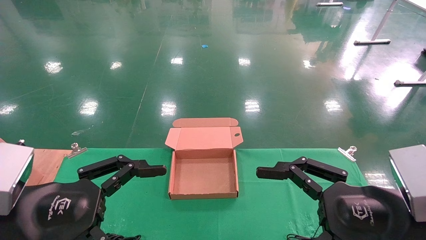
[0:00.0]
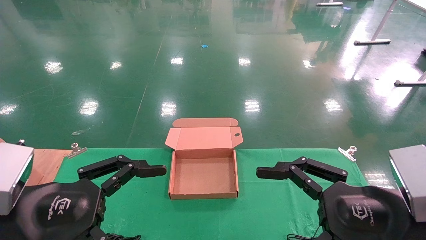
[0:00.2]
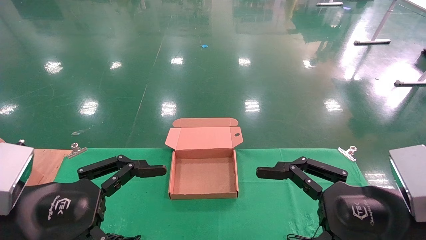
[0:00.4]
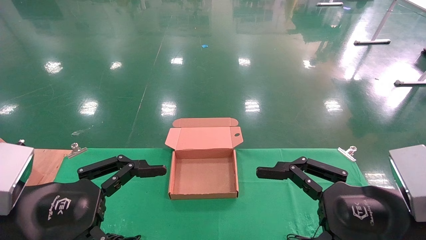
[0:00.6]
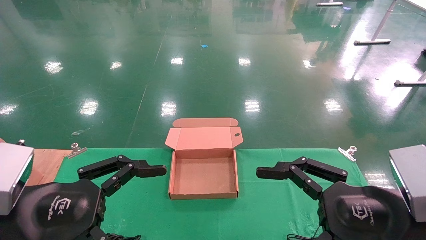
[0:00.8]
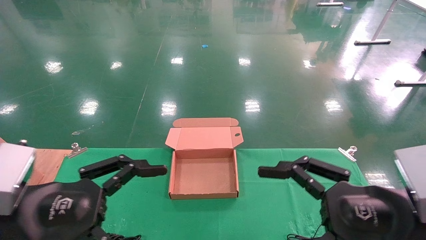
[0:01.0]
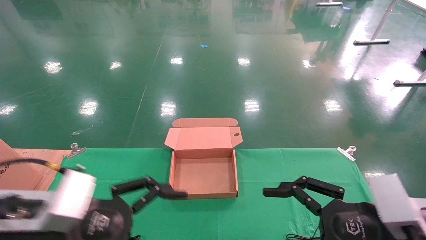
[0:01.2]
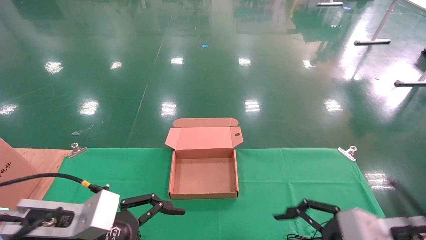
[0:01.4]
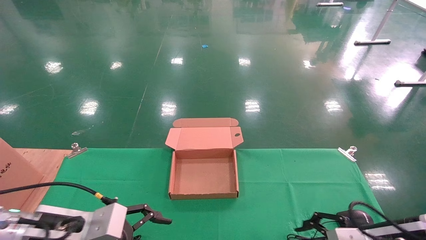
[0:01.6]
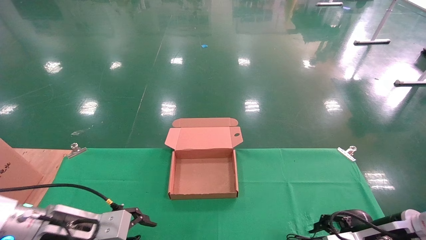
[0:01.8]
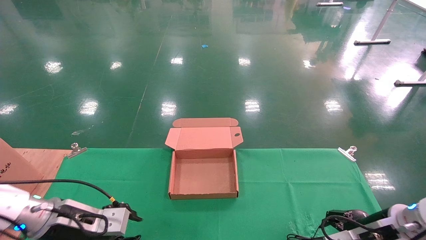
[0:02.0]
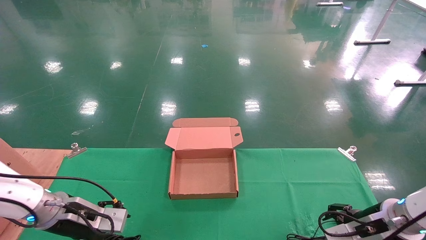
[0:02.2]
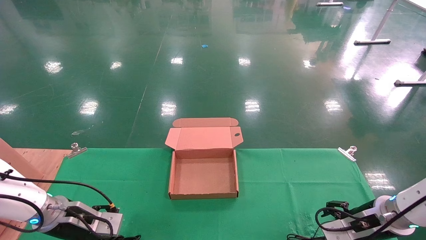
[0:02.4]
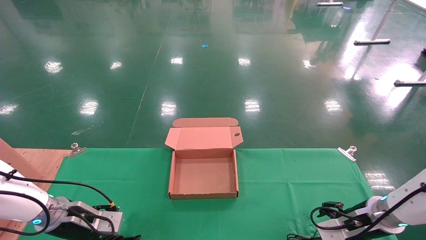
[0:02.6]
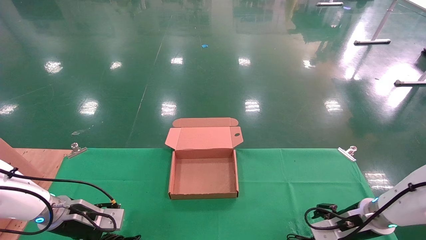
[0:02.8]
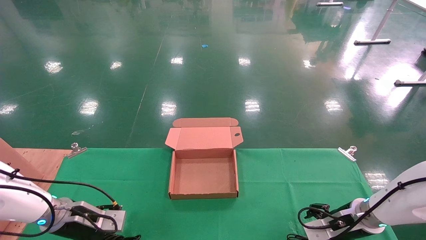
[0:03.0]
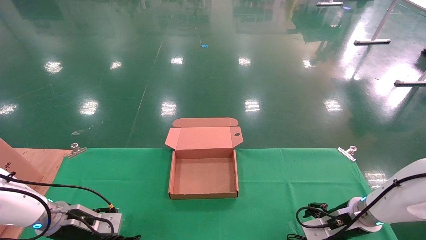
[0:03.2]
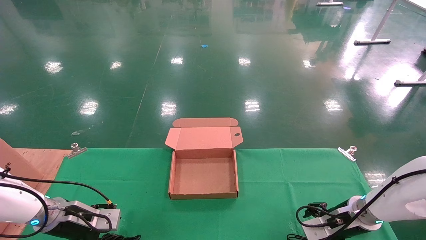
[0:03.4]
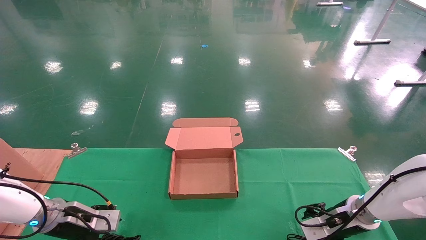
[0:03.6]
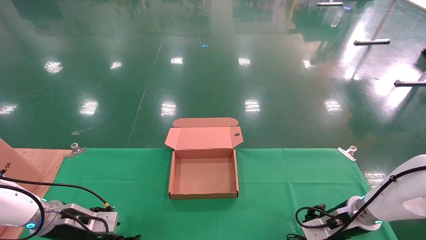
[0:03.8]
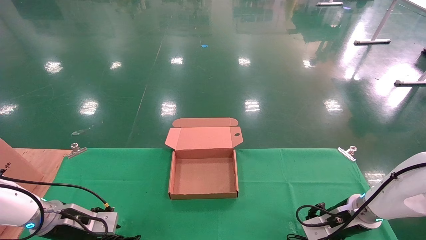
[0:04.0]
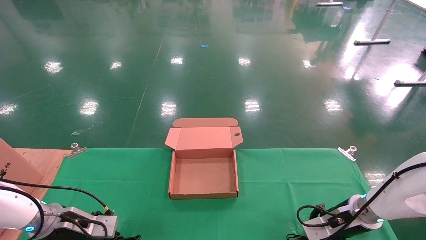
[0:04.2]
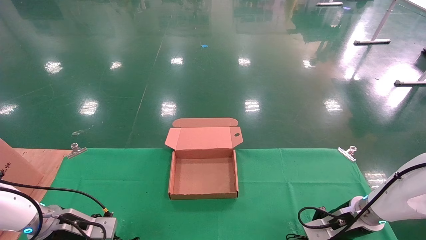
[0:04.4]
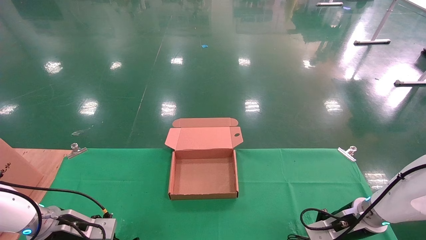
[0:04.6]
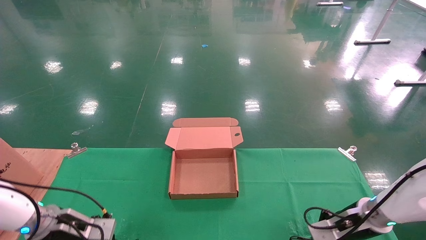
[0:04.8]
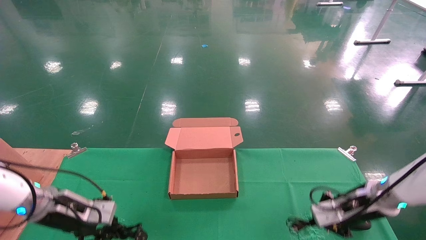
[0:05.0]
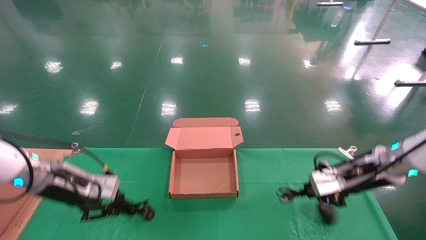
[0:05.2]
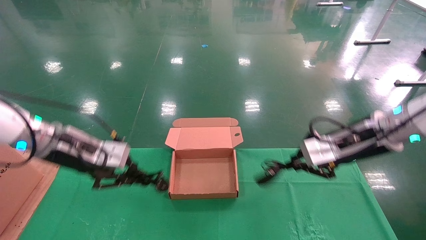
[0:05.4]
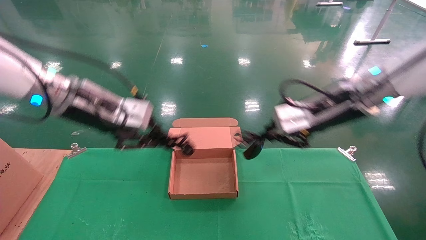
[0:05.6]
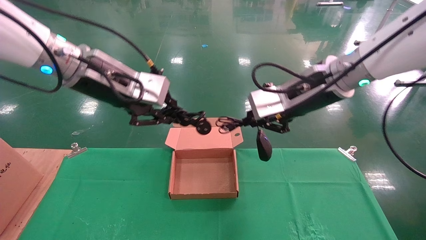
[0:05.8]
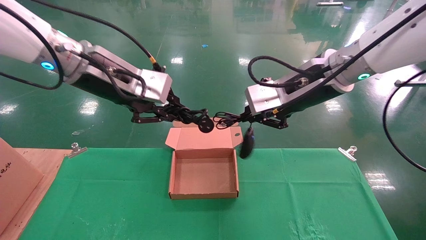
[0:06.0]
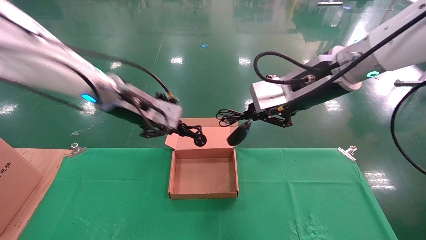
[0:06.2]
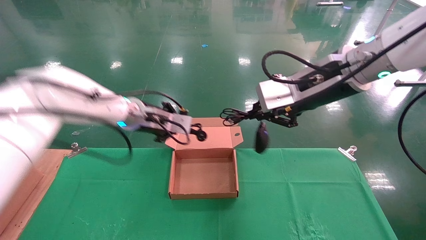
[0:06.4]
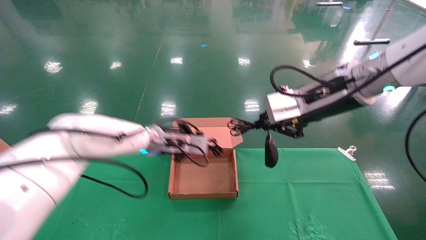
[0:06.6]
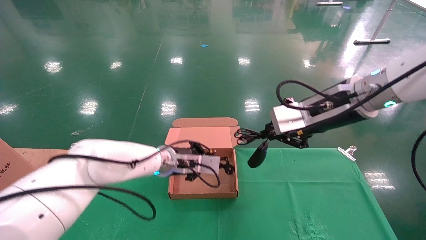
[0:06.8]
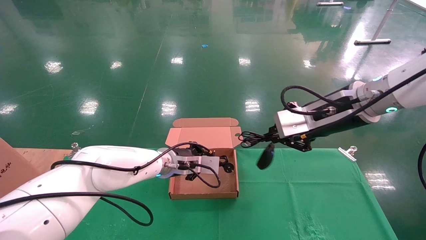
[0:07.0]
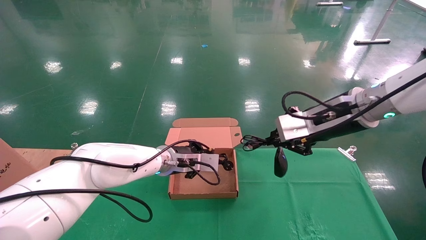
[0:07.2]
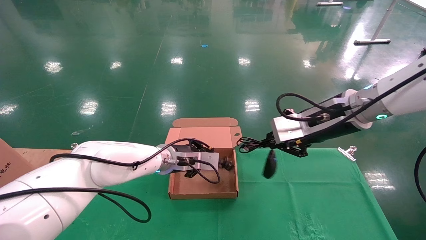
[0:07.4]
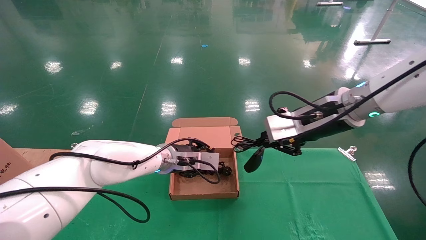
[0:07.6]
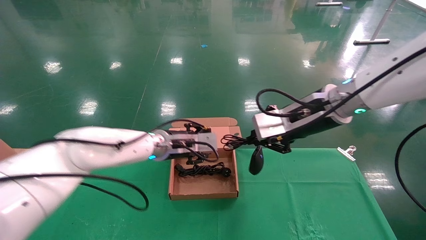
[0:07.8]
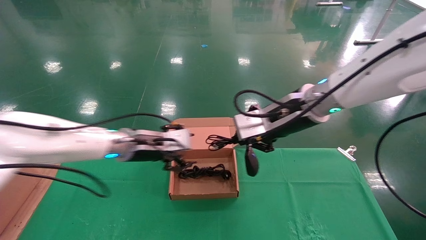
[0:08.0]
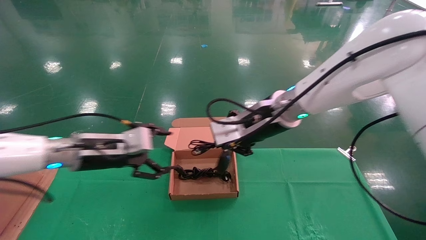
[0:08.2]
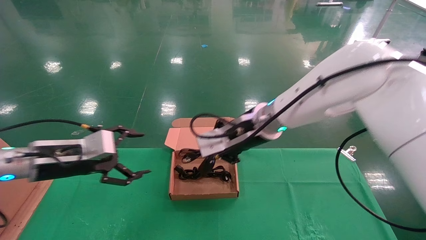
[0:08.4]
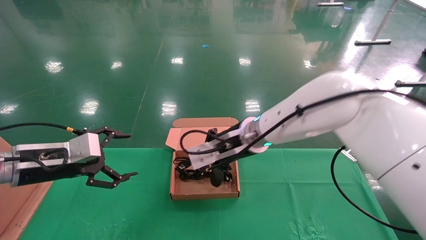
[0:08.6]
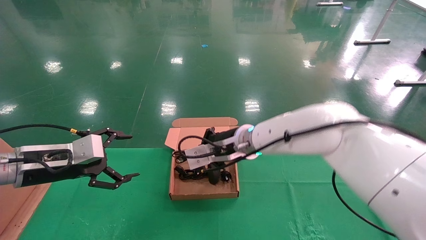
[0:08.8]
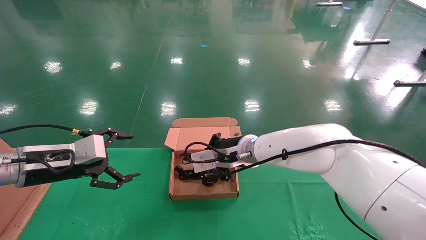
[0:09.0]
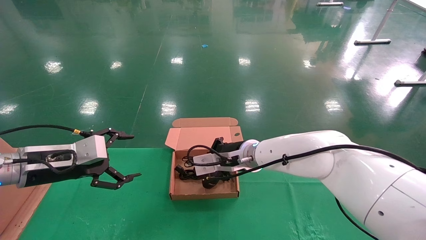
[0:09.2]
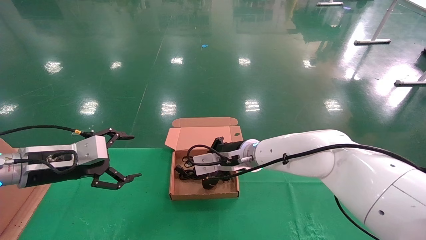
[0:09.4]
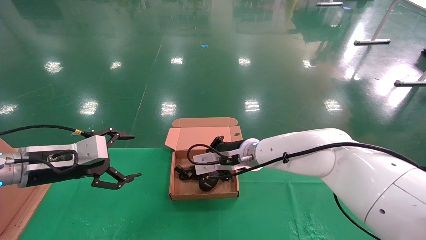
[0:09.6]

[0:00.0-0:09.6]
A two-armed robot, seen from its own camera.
Step, 0:01.4 to 0:05.2: Grab and lift both the mouse and power cord from the accessory packaging area at the same time.
0:00.0 to 0:01.6: The left gripper goes some 10 cm forward and downward; the right gripper moves downward and forward, approximately 10 cm.
0:01.6 to 0:03.2: The left gripper shifts some 15 cm forward, to the left and downward; the right gripper goes approximately 15 cm forward and downward.
0:03.2 to 0:04.8: The right gripper closes up, while the left gripper closes up.
0:04.8 to 0:06.4: The right gripper travels upward and to the left by approximately 30 cm. Meanwhile the left gripper heads upward and to the right, covering approximately 25 cm.
0:06.4 to 0:08.0: The grippers both shift downward by some 5 cm. The left gripper opens up.
0:08.0 to 0:09.6: The left gripper travels to the left and backward by about 15 cm, and opens. Meanwhile the right gripper moves downward, to the left and forward, roughly 15 cm.

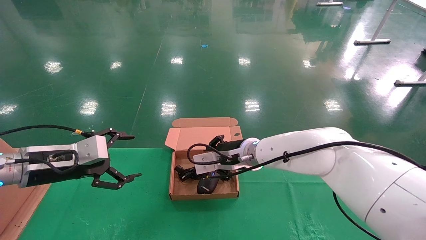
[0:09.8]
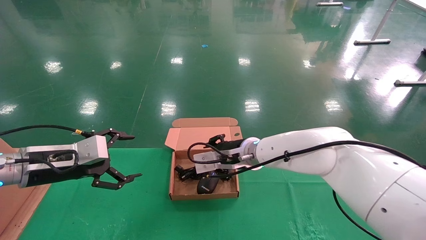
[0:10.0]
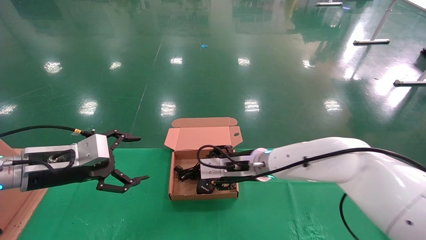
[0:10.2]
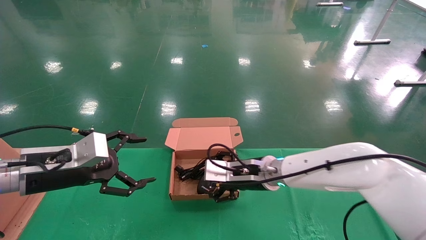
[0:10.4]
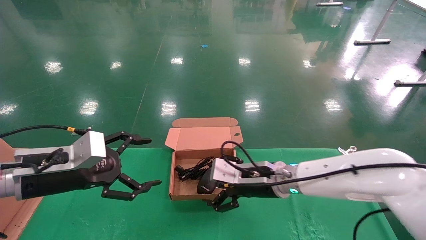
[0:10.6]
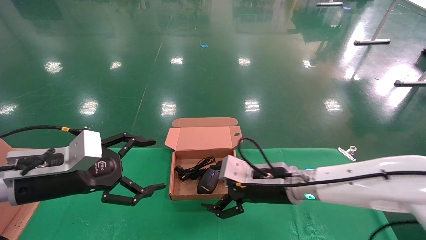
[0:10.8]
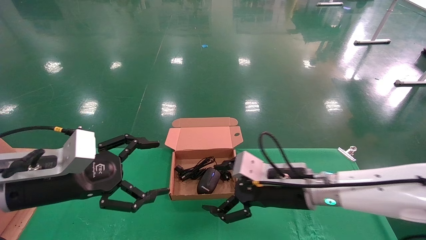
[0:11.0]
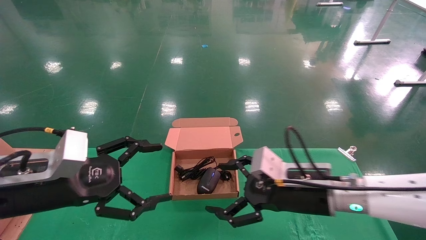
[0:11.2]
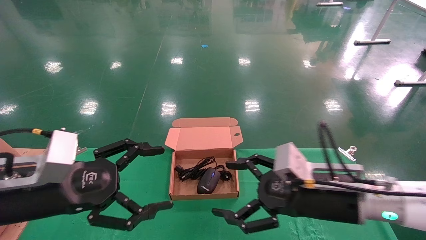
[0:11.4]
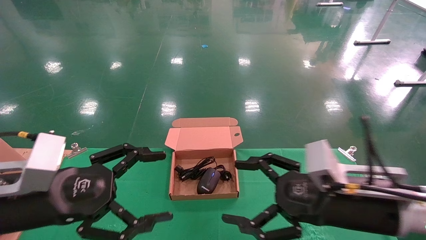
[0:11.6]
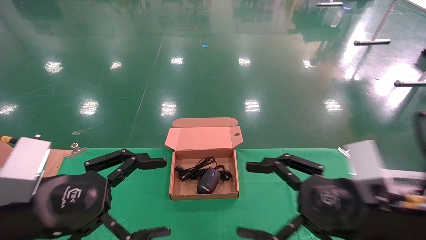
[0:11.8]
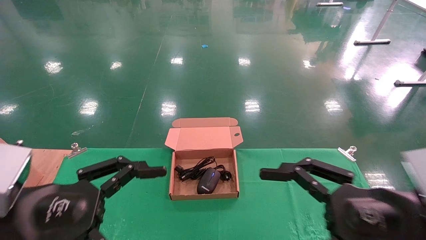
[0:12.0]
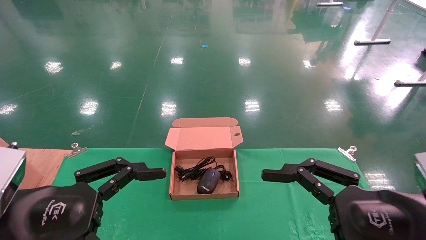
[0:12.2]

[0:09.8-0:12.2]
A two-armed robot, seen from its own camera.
0:09.8 to 0:11.0: The left gripper heads backward and to the right, covering approximately 10 cm. The right gripper shifts roughly 15 cm backward and to the right, and opens.
0:11.0 to 0:12.2: The right gripper shifts about 20 cm backward and to the right; the left gripper is displaced backward by some 10 cm.

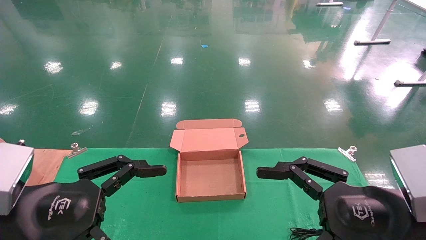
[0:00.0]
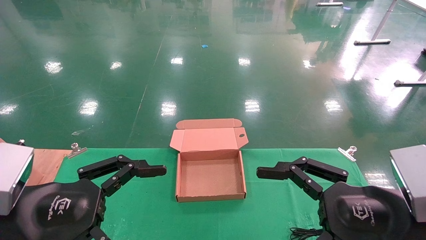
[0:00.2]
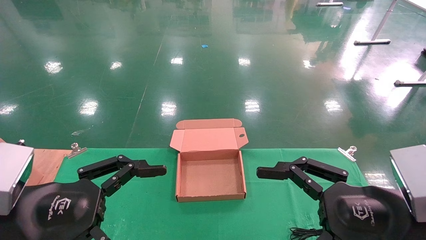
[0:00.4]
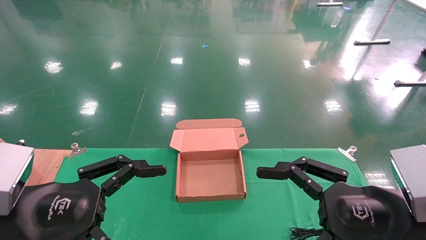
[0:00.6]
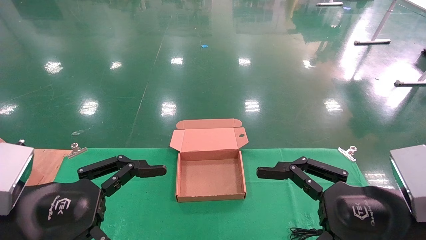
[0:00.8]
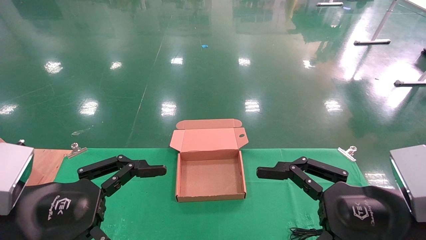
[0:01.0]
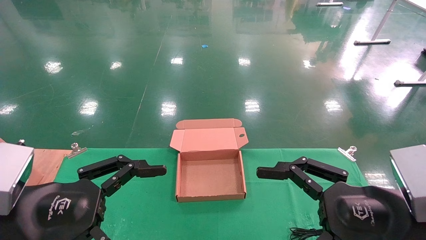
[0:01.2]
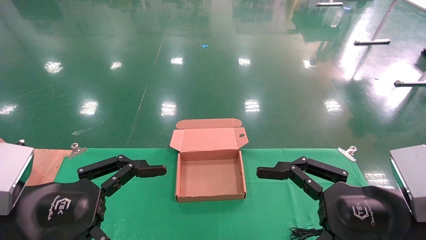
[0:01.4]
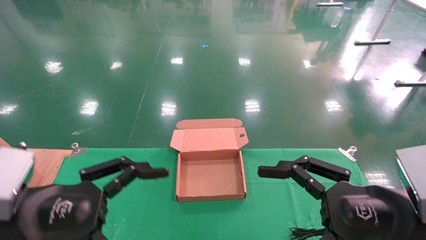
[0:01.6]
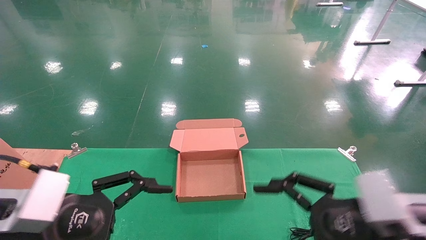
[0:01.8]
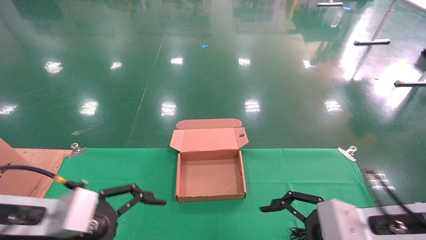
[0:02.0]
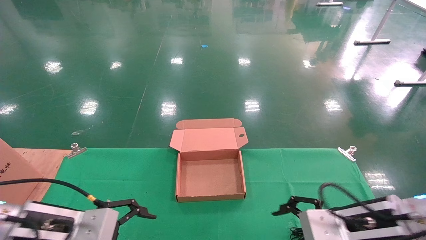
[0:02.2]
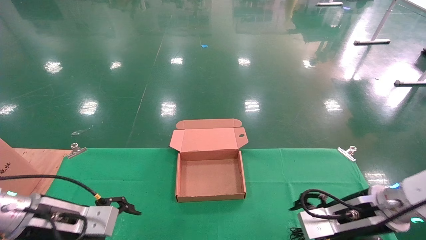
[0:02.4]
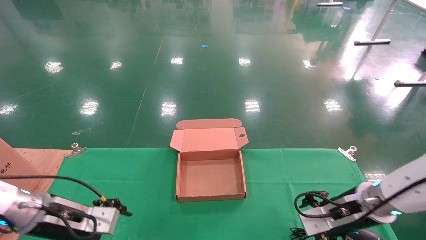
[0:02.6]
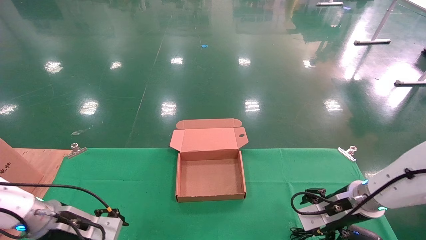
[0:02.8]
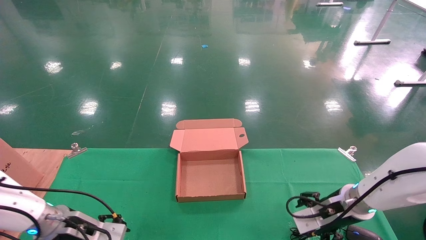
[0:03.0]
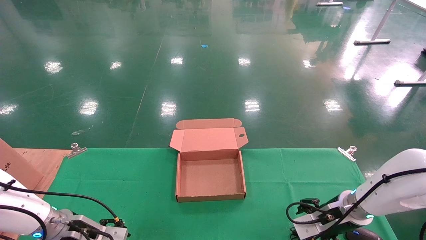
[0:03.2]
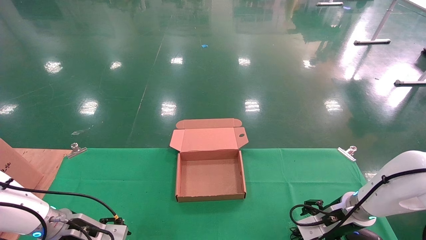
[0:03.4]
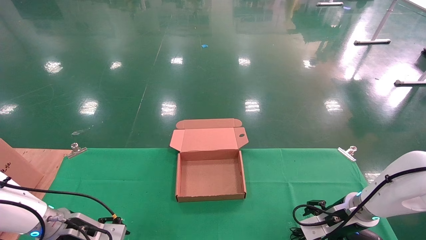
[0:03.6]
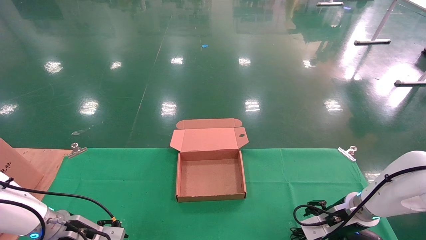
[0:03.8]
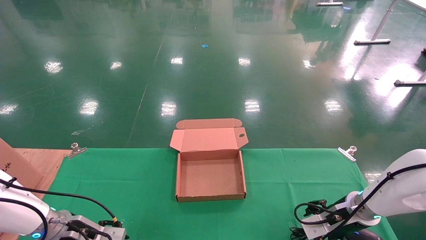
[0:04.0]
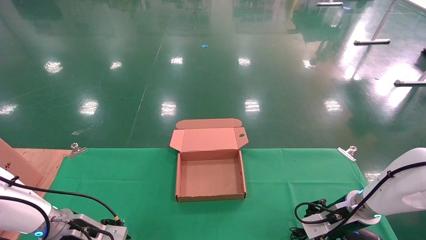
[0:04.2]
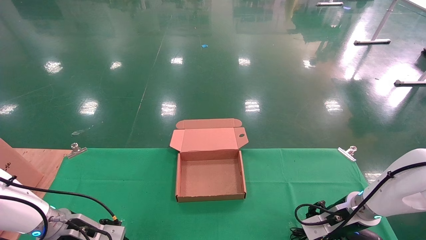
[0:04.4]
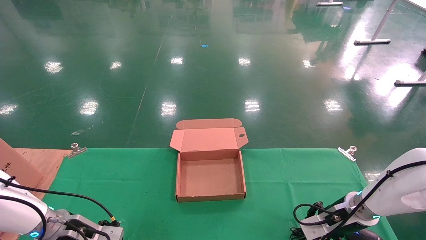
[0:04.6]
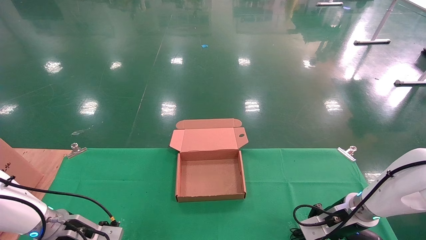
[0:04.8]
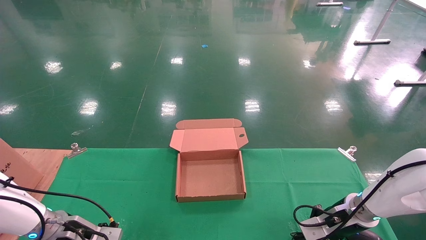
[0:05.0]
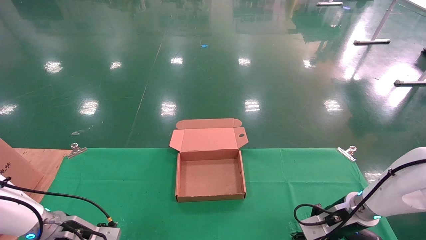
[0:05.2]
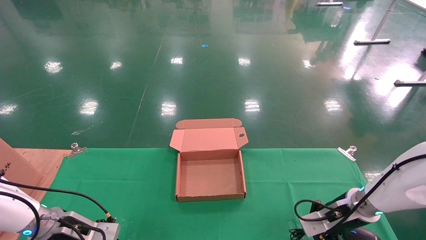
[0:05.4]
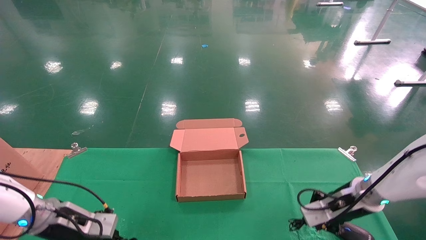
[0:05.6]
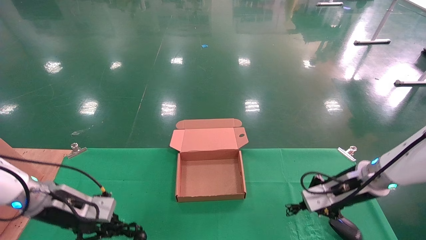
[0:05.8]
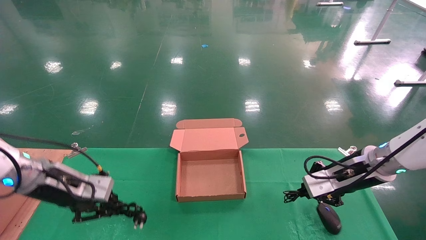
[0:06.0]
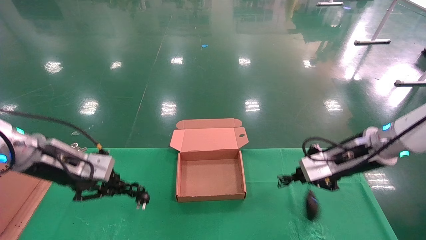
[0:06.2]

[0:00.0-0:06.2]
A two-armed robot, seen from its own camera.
0:00.0 to 0:01.6: The grippers move only a little.
0:01.6 to 0:03.2: Both grippers travel together forward and downward, roughly 25 cm.
0:03.2 to 0:04.6: The left gripper closes. The right gripper closes its fingers.
0:04.6 to 0:06.2: Both grippers travel together upward, approximately 20 cm. The right gripper closes up. The left gripper closes its fingers.
